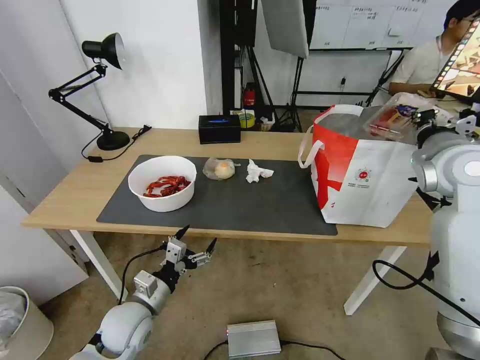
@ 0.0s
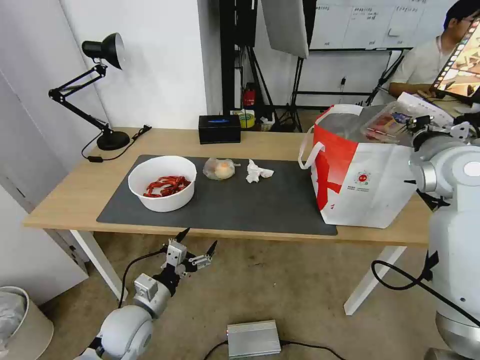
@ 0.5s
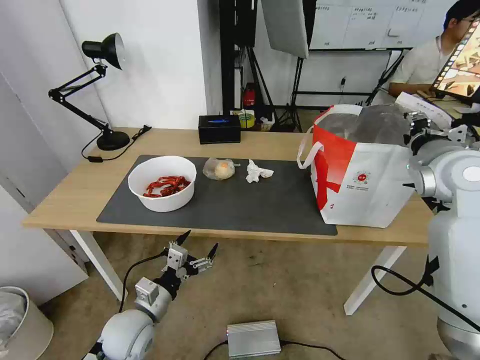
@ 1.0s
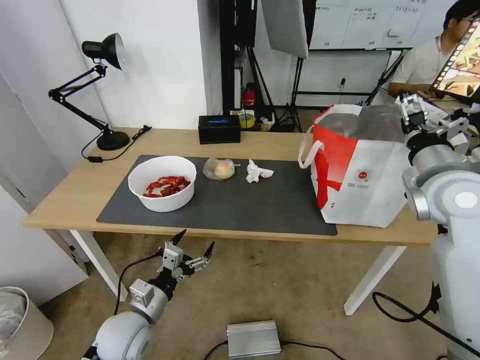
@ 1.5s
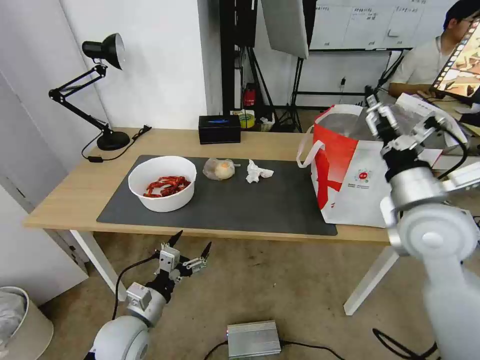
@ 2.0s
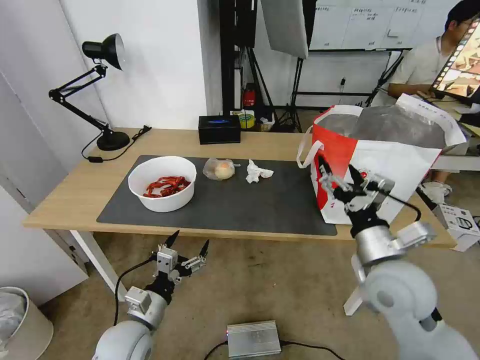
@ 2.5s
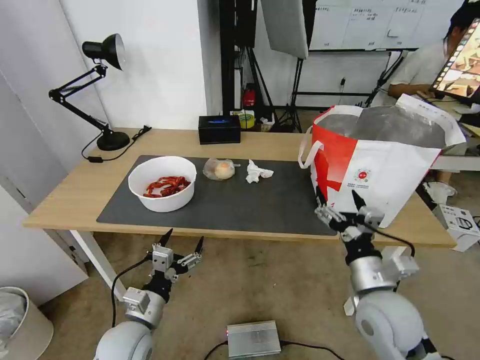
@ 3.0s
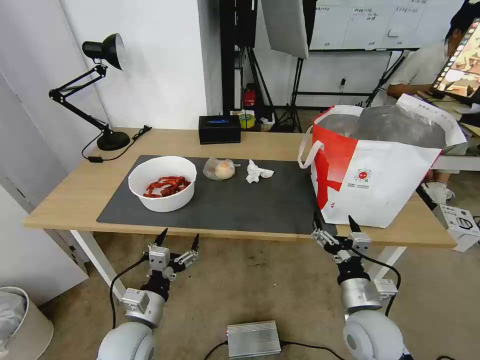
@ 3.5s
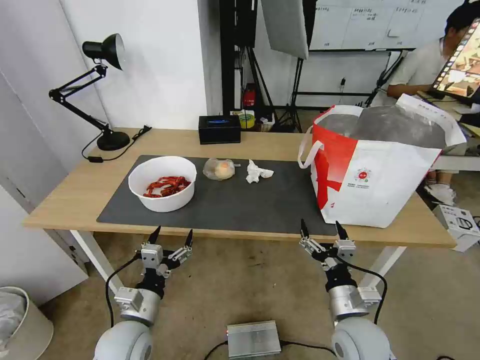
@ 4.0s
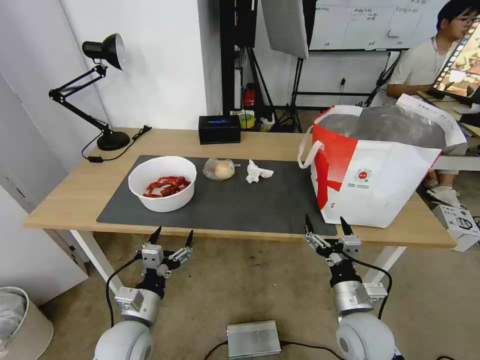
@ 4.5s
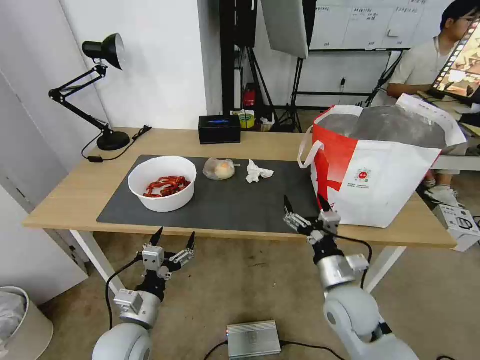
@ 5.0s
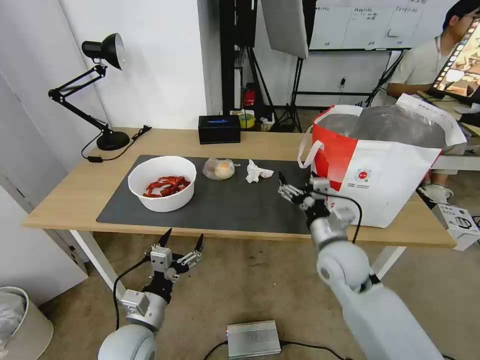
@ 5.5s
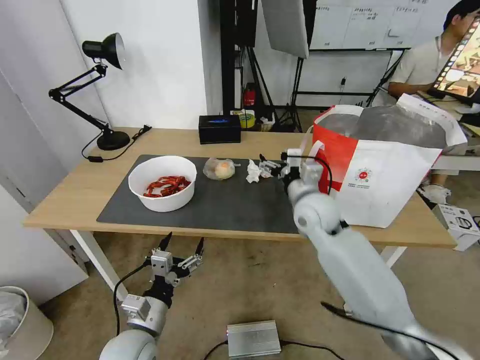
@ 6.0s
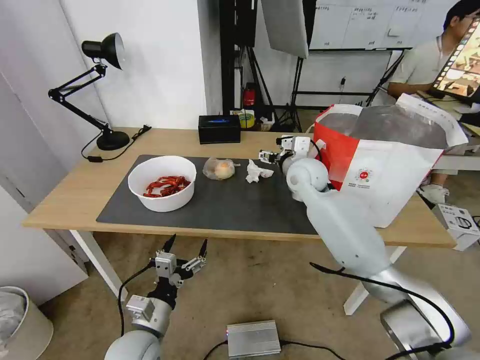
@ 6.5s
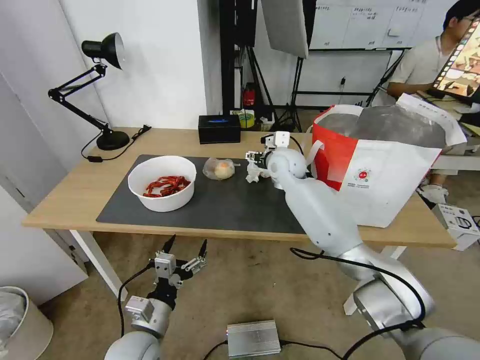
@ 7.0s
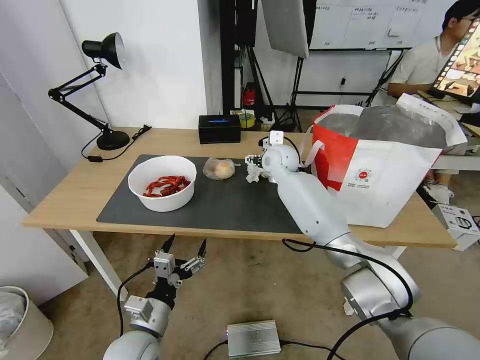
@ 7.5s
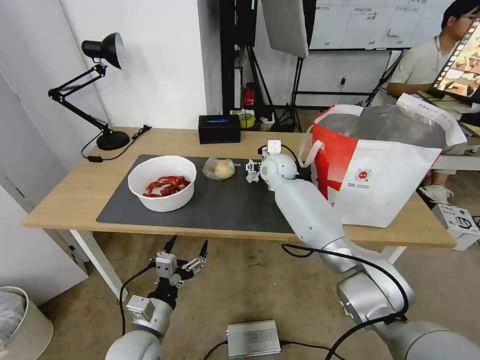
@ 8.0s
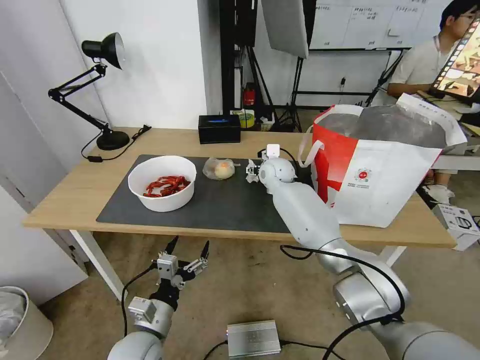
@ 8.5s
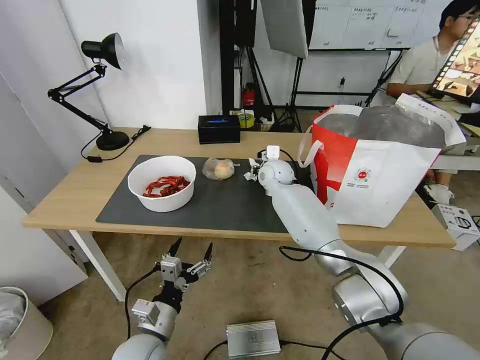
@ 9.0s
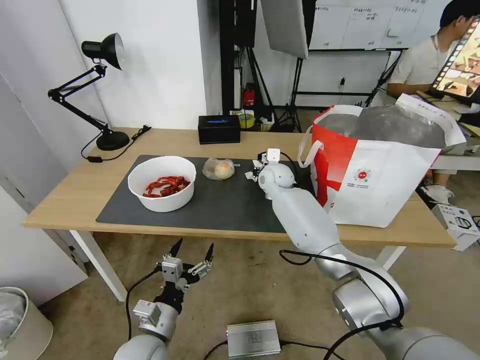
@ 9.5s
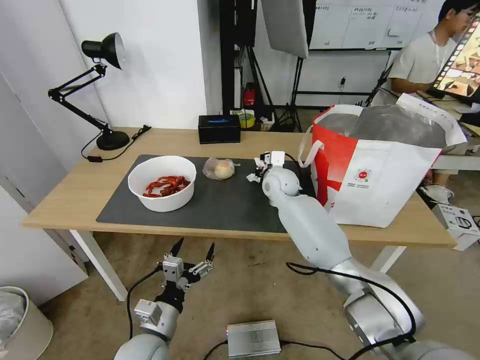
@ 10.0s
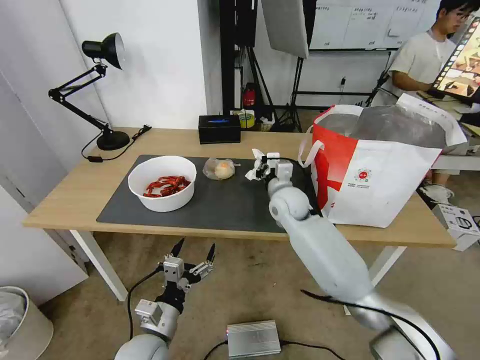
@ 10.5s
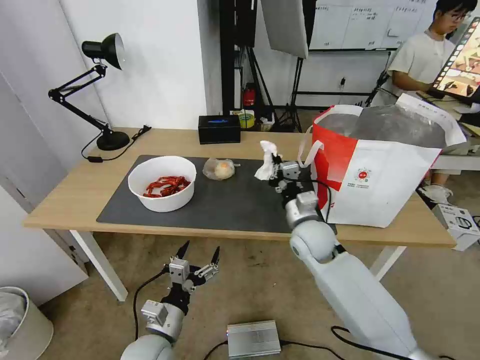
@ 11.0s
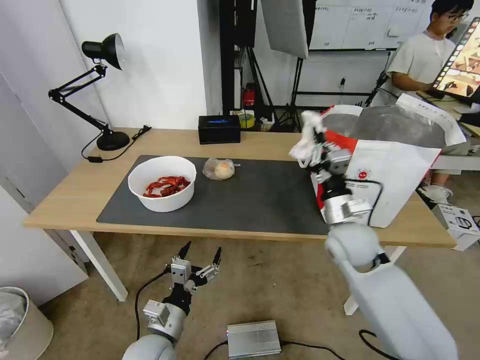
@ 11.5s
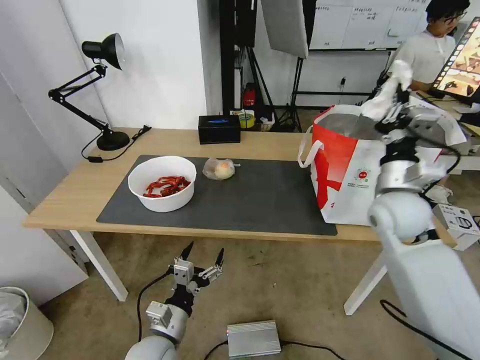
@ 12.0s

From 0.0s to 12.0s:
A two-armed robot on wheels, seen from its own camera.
Task of the whole recording: Pick up the trash from the table and place it into the takeout bag.
From 0.0s to 2.0s: The right gripper travels backward, to the left and downward by roughly 15 cm, and opens.
From 2.0s to 4.0s: The right gripper moves downward and backward, about 25 cm.
From 4.0s to 6.0s: The right gripper moves forward and upward, some 25 cm.
From 6.0s to 8.0s: The right gripper shifts about 20 cm forward.
From 8.0s to 10.0s: The right gripper closes its fingers.
From 10.0s to 12.0s: The right gripper shifts some 25 cm to the right, backward and upward.

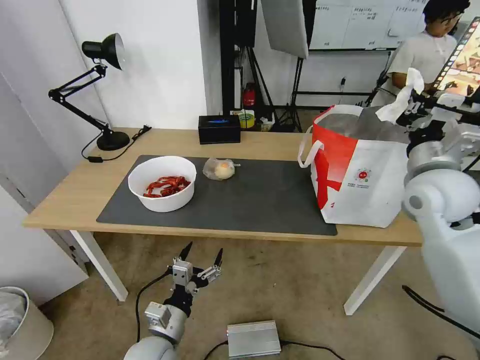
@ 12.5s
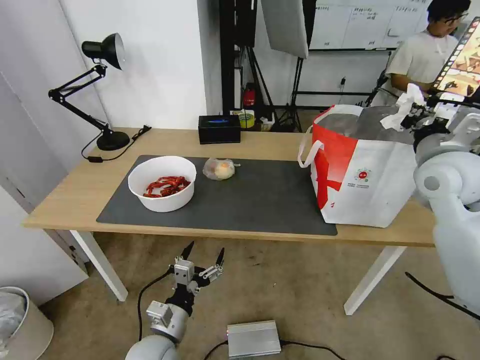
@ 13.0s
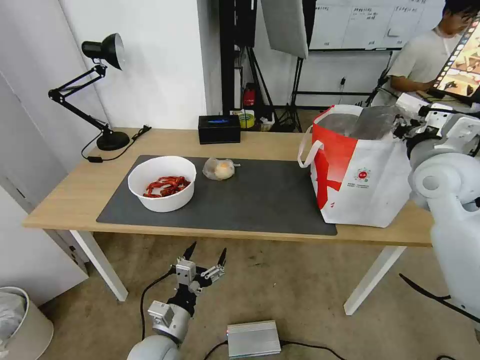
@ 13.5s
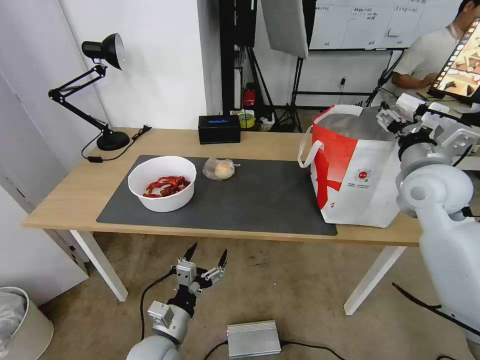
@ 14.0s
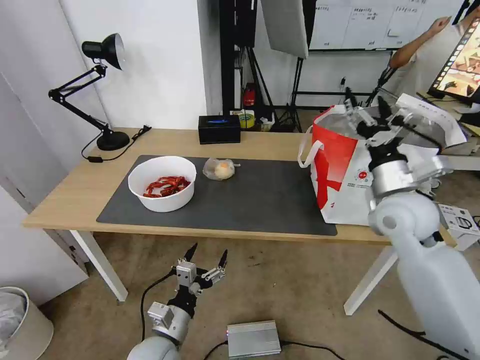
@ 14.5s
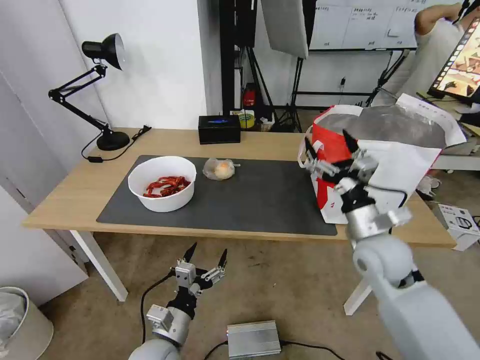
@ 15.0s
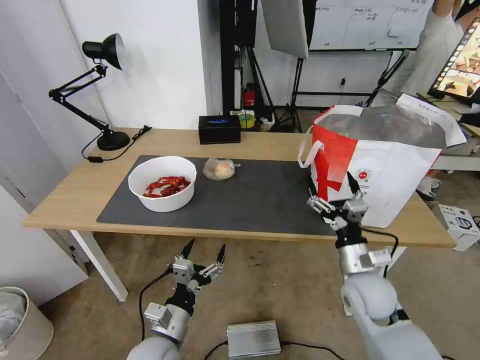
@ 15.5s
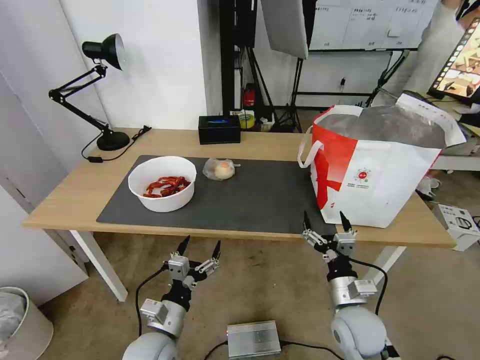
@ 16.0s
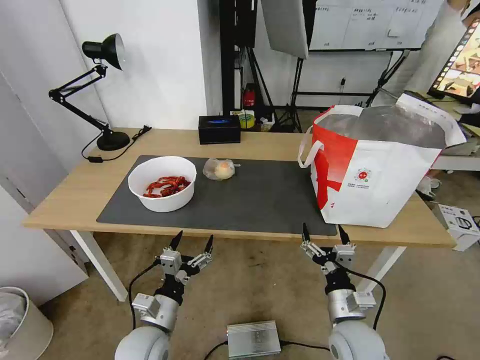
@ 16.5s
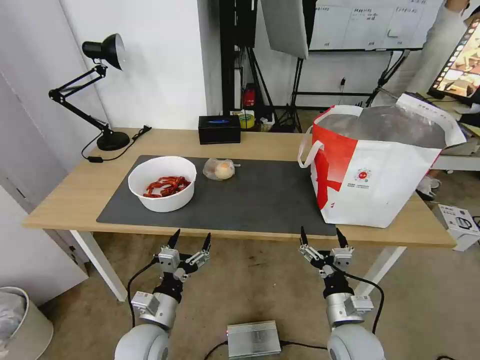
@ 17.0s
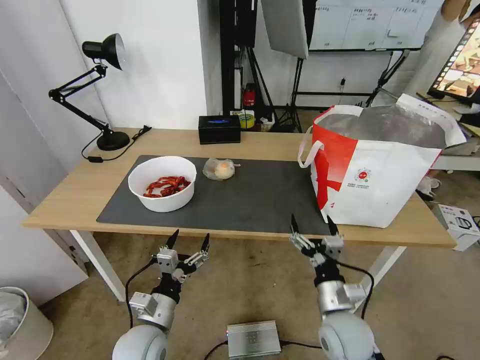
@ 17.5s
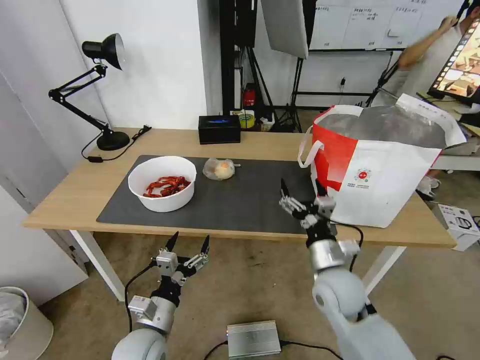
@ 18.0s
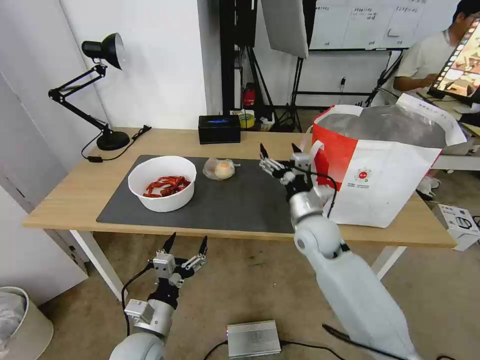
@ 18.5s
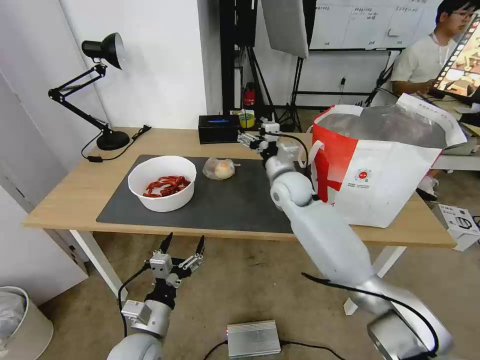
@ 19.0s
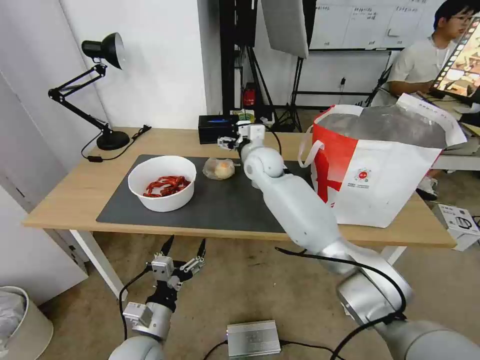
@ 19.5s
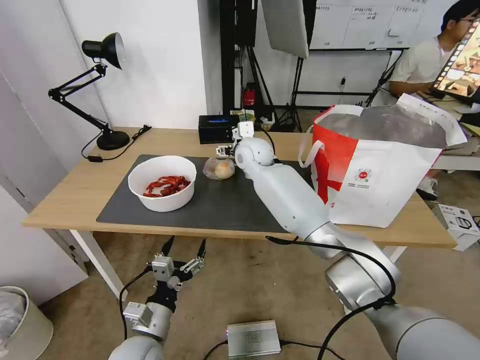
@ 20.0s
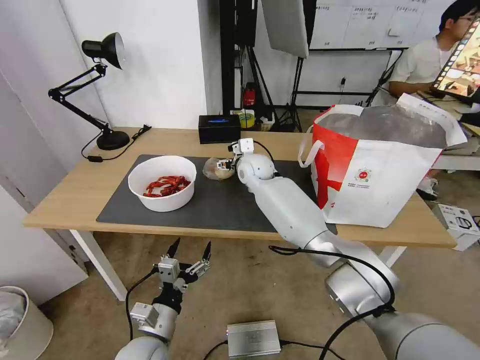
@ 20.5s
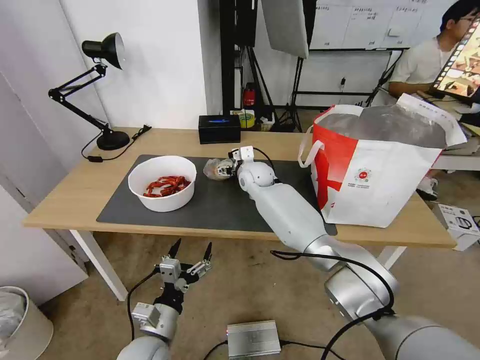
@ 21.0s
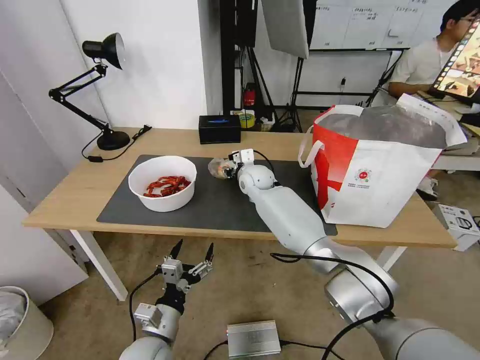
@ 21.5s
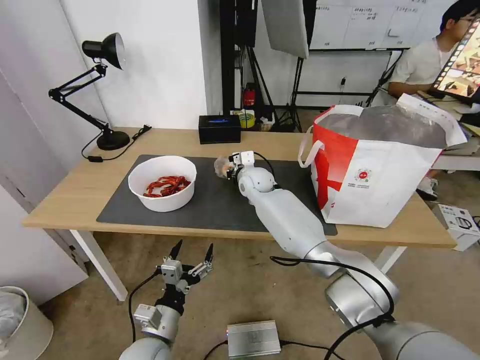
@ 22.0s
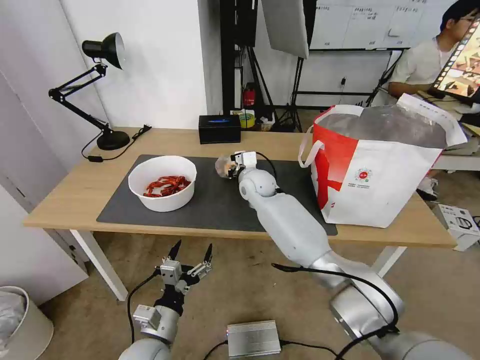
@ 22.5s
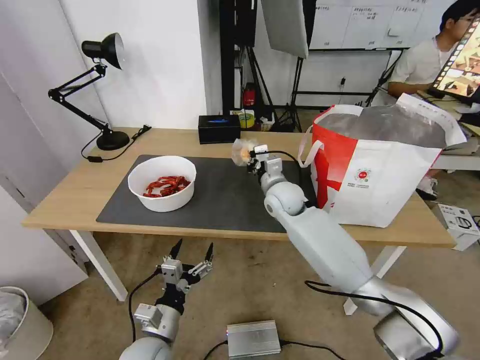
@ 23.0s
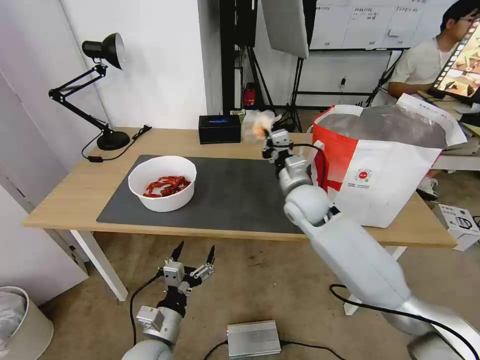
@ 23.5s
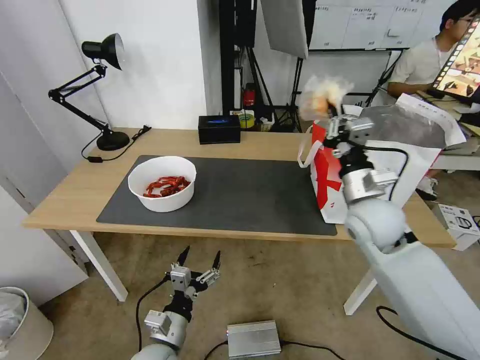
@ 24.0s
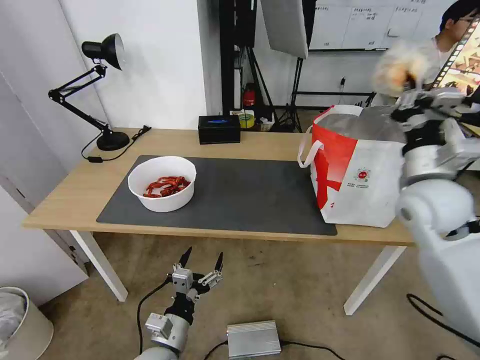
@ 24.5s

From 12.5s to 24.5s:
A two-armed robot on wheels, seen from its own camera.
Task of the whole recording: Pick up the trash from the table and place it into the takeout bag.
From 12.5s to 14.5s: The right gripper ends up about 5 cm from where it was, and opens.
From 14.5s to 16.5s: The right gripper shifts roughly 30 cm downward and backward.
From 16.5s to 18.5s: The right gripper shifts approximately 25 cm forward and upward.
From 18.5s to 20.5s: The right gripper goes approximately 25 cm forward and to the left.
From 20.5s to 22.5s: The right gripper closes.
From 22.5s to 24.5s: The right gripper is displaced to the right, backward and upward by approximately 35 cm.

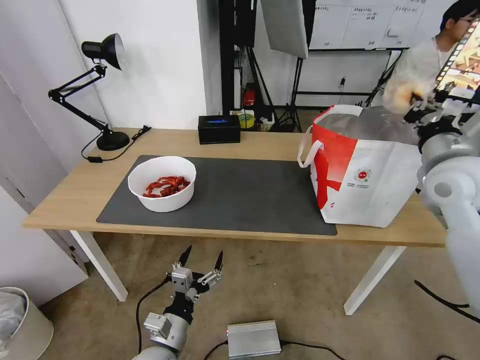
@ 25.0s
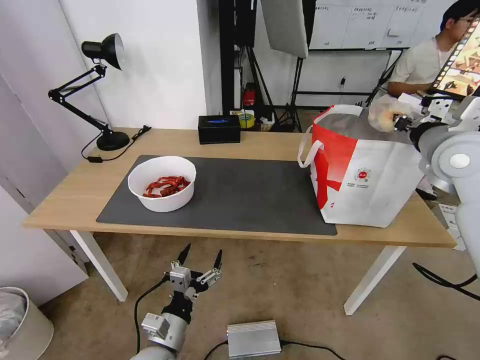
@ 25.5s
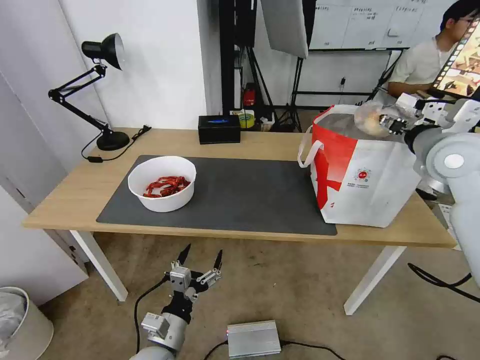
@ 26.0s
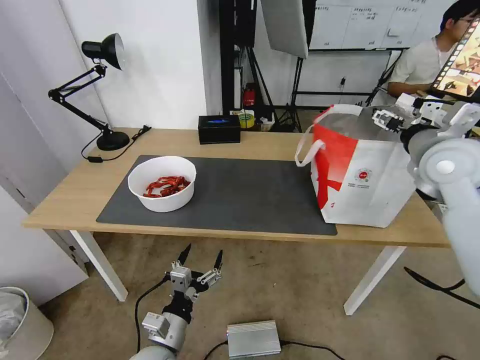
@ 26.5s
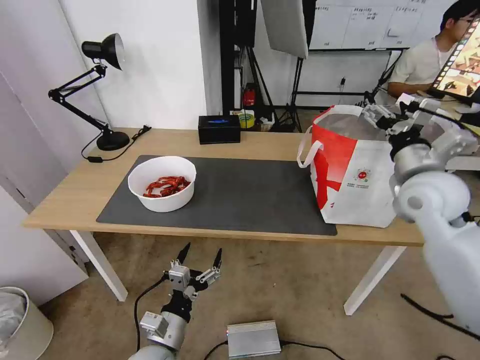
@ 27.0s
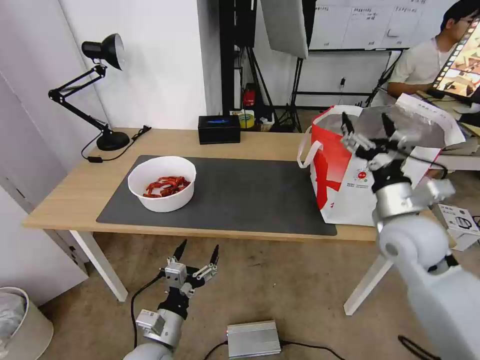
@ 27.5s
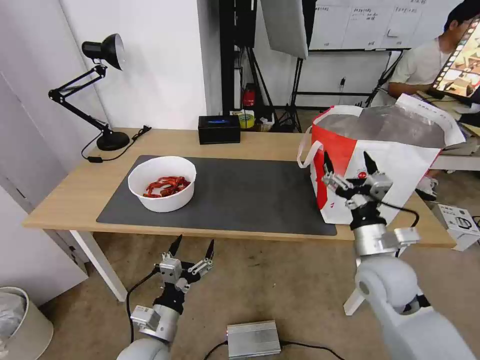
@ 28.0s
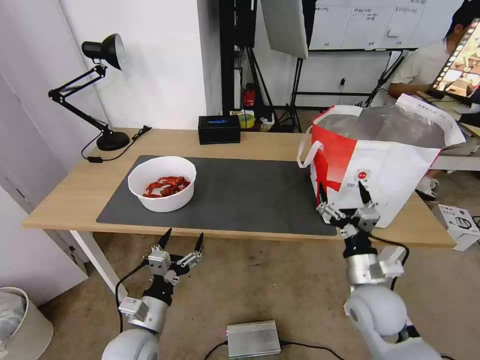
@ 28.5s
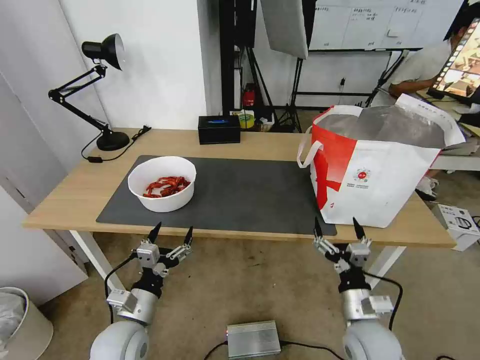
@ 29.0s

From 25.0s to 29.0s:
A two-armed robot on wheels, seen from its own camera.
Task of the whole recording: Pick up the trash from the table and place it into the takeout bag.
From 25.0s to 27.0s: The right gripper opens up.
From 27.0s to 29.0s: The right gripper goes some 30 cm downward and backward, while the left gripper shifts roughly 5 cm to the left.
